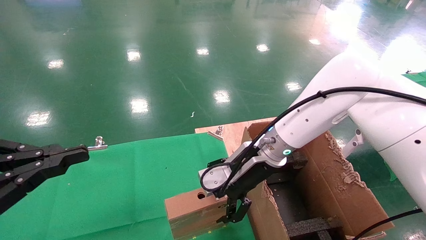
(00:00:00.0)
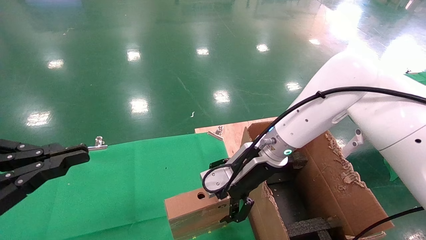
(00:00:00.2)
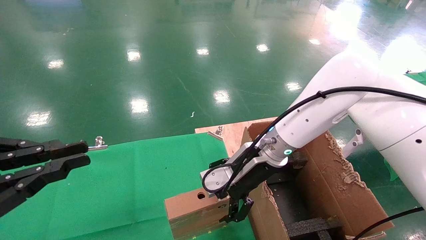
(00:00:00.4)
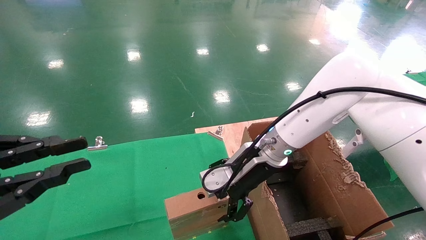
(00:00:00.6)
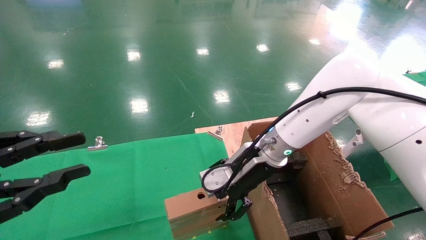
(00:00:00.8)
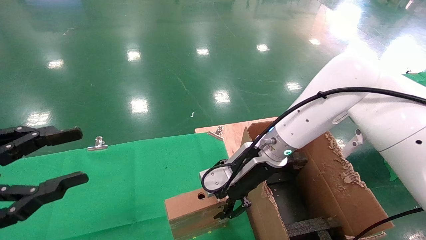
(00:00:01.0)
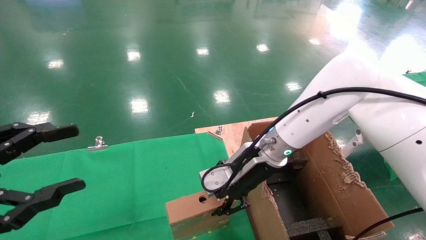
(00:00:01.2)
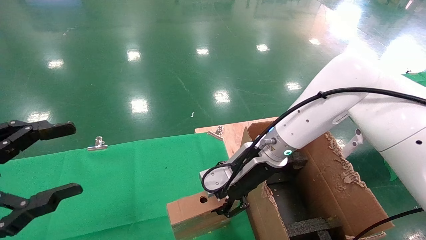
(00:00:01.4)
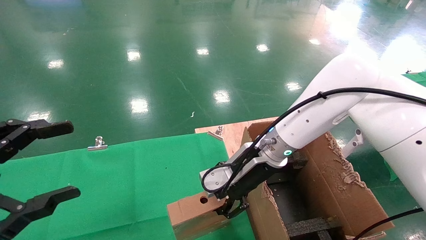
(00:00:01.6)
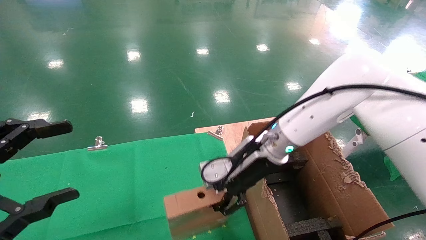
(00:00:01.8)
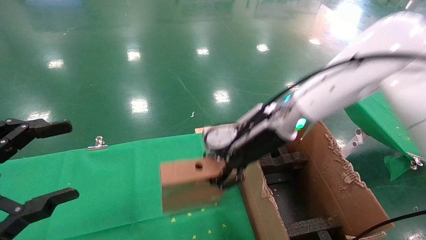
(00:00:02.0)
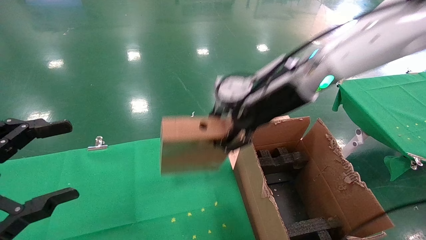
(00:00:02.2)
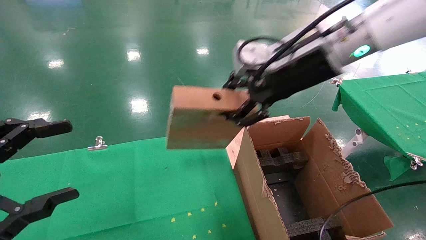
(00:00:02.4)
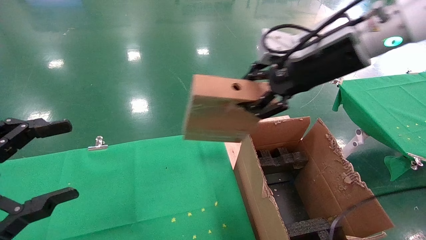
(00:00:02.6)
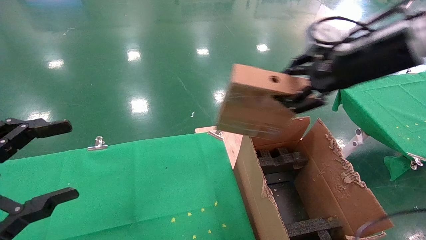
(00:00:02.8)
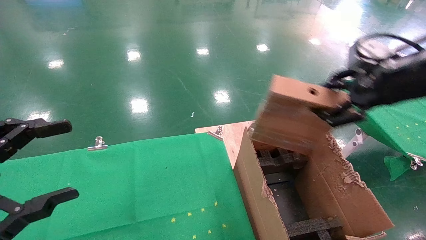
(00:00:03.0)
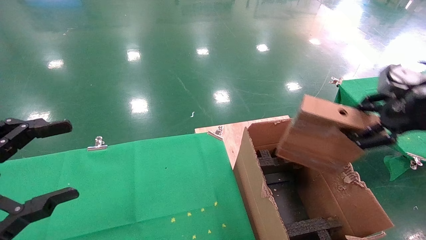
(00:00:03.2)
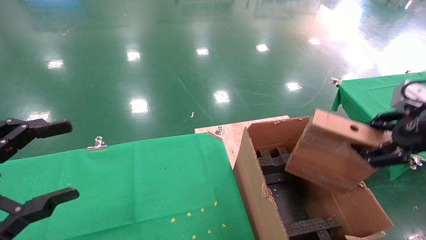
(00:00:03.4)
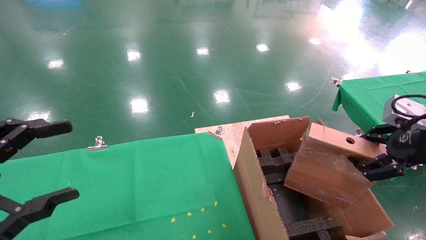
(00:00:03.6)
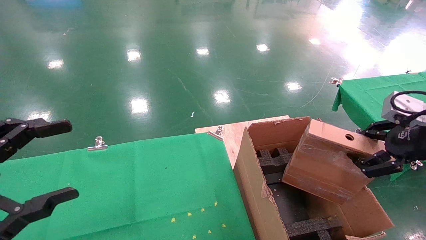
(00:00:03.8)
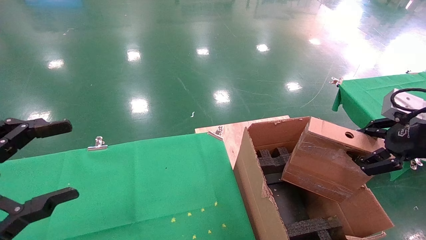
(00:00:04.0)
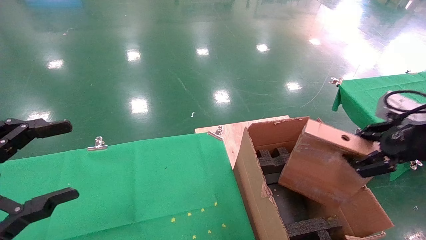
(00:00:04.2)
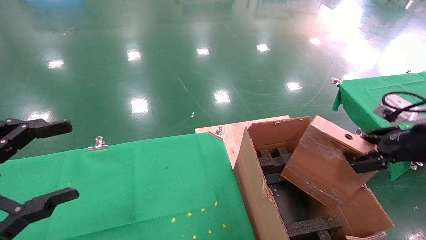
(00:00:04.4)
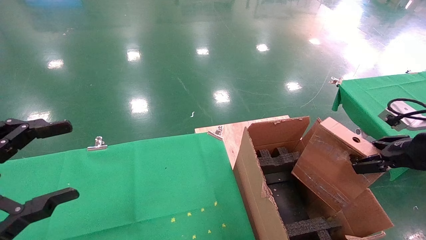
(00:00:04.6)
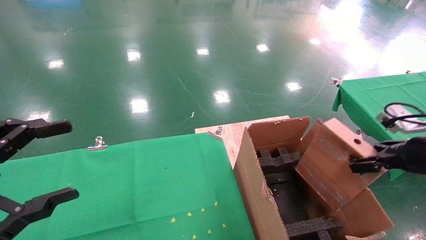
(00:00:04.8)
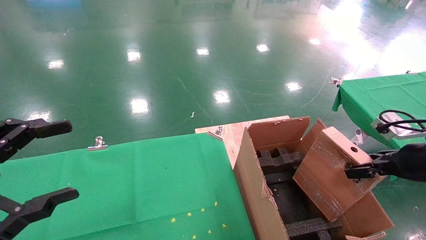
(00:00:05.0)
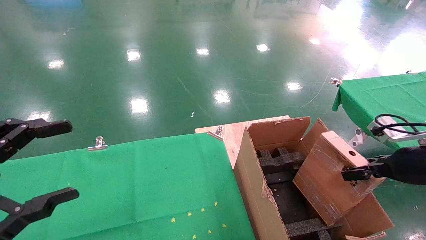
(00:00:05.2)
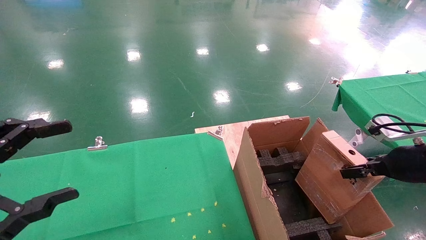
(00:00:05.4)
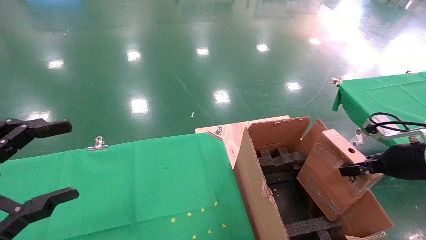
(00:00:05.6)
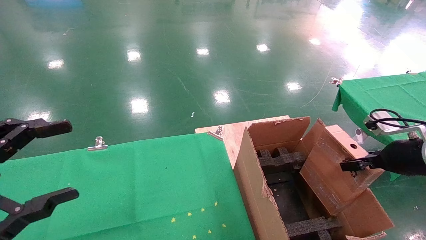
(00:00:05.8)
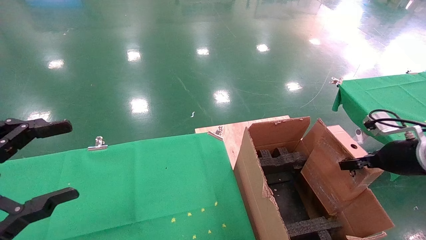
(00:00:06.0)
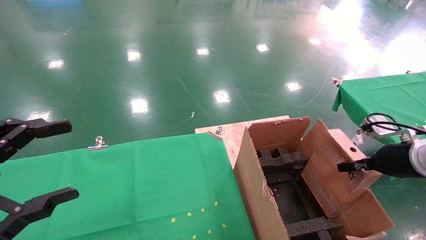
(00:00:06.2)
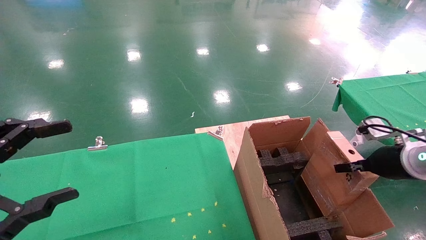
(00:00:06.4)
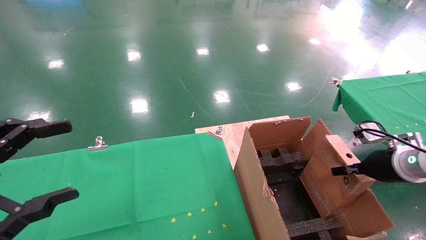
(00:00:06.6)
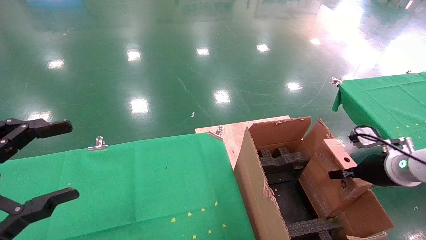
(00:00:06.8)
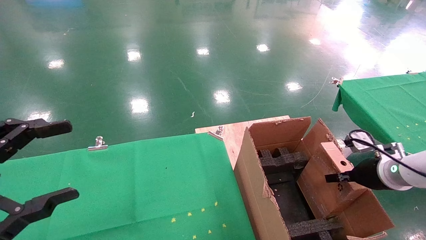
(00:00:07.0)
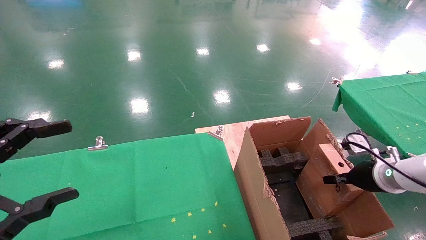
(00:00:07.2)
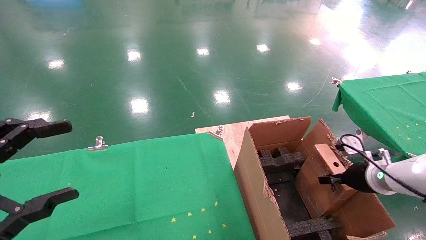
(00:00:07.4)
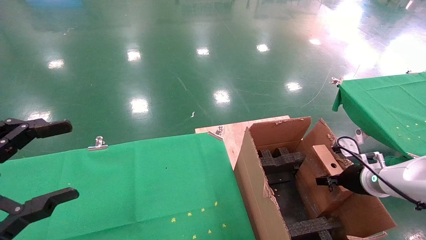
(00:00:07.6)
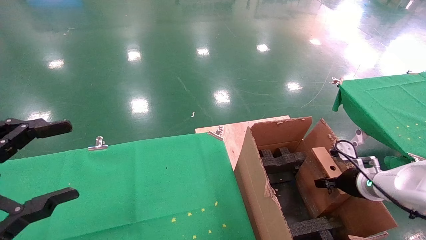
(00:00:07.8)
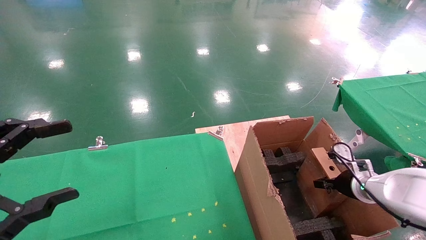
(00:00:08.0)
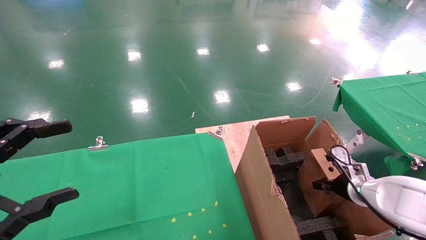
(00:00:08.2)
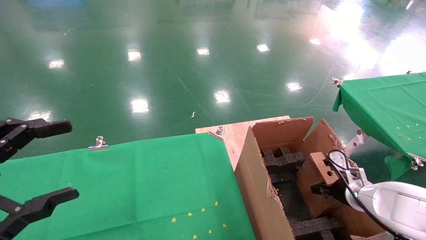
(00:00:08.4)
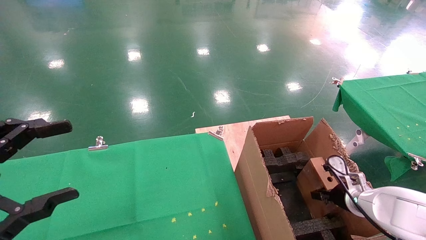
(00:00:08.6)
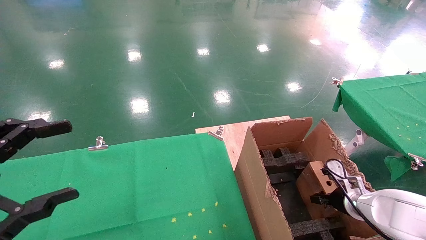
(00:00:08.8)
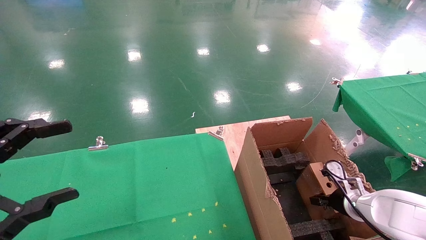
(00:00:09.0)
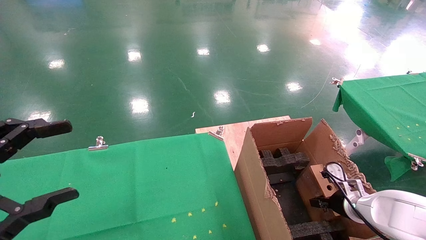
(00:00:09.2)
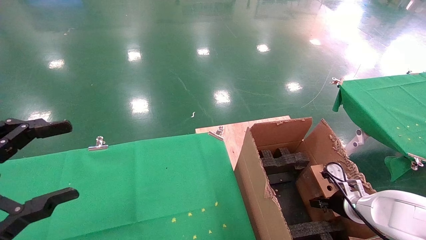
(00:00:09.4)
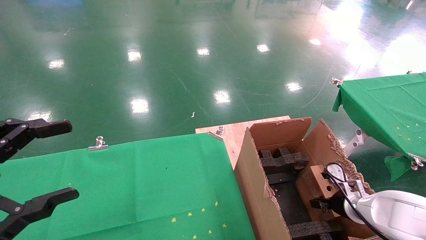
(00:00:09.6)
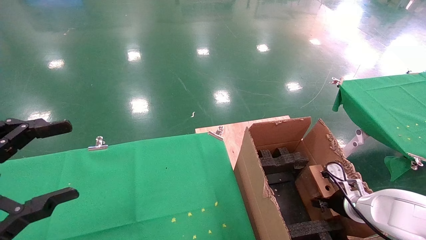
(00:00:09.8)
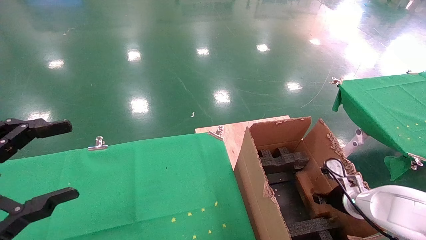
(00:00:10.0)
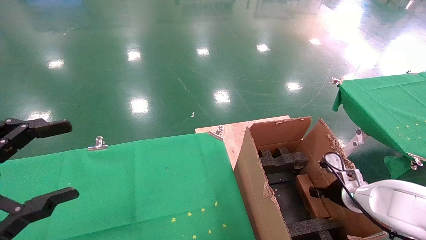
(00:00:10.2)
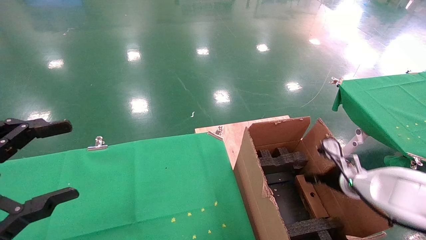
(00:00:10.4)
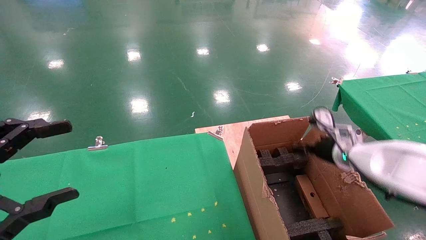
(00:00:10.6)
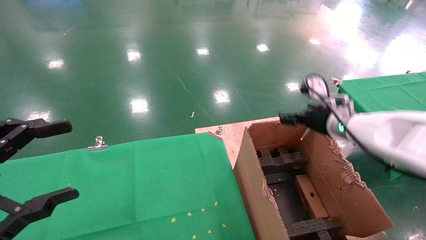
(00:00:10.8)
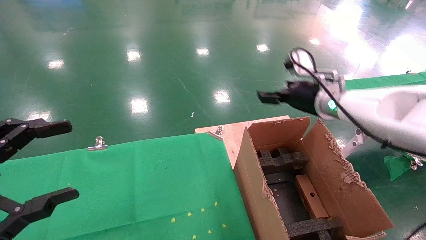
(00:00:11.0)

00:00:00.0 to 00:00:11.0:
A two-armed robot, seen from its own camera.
Task of the whole recording: using a robotic arm to pick up a cardboard box and palace it the carton.
Step, 00:00:01.6 to 00:00:10.8: Place the mouse and the power cord paper box into the container.
00:00:00.0 to 00:00:01.6: The left gripper opens its fingers; the right gripper closes.
00:00:01.6 to 00:00:03.2: The right gripper travels to the right, backward and upward by roughly 35 cm.
00:00:03.2 to 00:00:04.8: The right gripper moves downward, about 10 cm.
00:00:04.8 to 00:00:06.2: The right gripper is displaced forward by about 5 cm.
00:00:06.2 to 00:00:07.8: The right gripper heads downward and forward, covering some 10 cm.
00:00:07.8 to 00:00:09.4: The right gripper is displaced downward by about 5 cm.
00:00:09.4 to 00:00:11.0: The right gripper heads upward, covering approximately 25 cm, and opens.

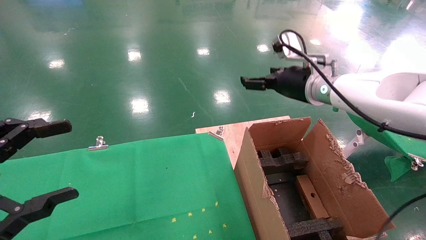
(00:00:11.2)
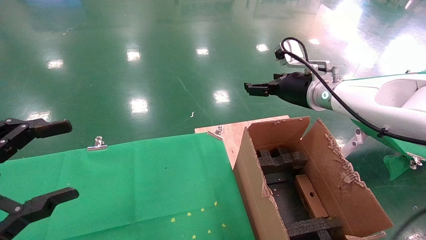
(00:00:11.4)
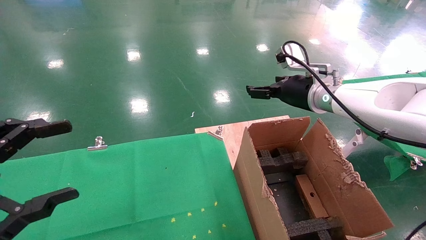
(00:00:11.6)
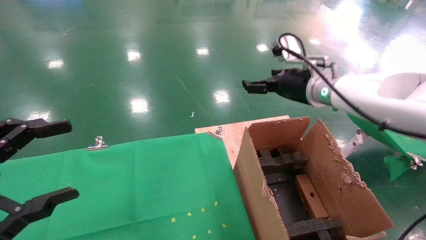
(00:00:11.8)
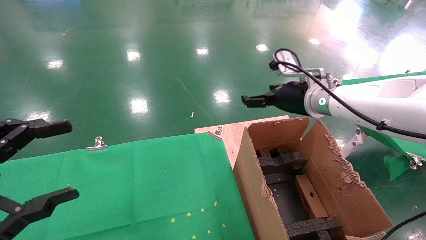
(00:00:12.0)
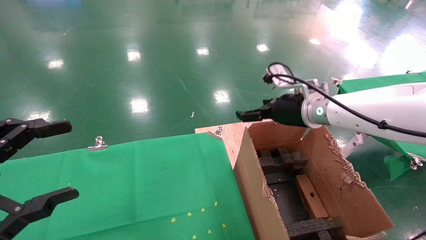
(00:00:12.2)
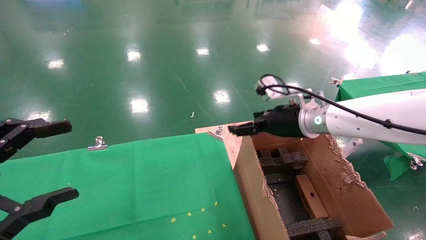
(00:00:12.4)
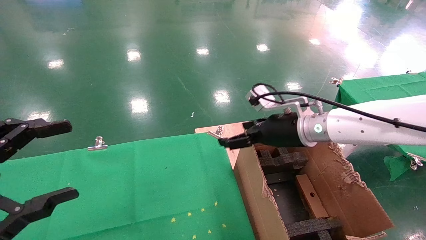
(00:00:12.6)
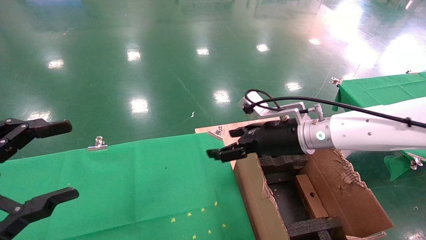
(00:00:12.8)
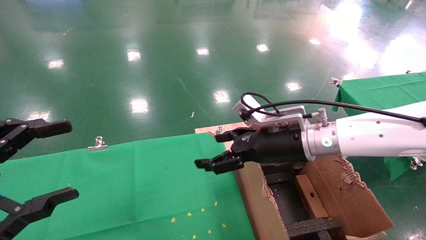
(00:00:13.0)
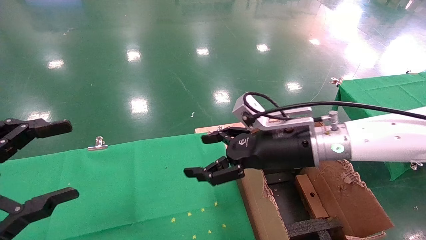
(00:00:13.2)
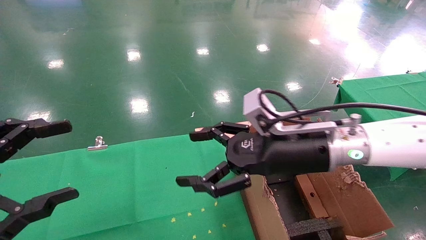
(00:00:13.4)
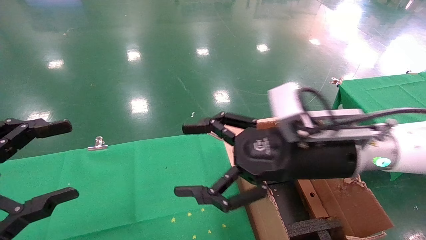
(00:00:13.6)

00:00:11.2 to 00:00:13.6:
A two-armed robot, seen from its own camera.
Task of the whole recording: using a robotic arm to pick up a cardboard box and palace it the carton.
00:00:11.2 to 00:00:12.4: The right gripper travels downward by some 5 cm.
00:00:12.4 to 00:00:13.6: The right gripper goes roughly 15 cm backward.
